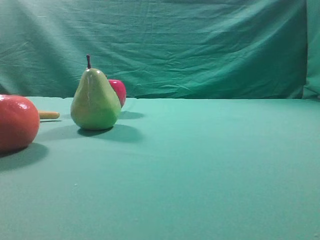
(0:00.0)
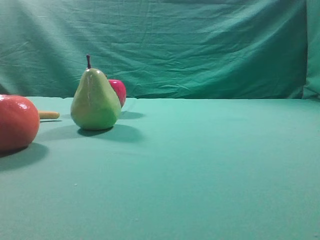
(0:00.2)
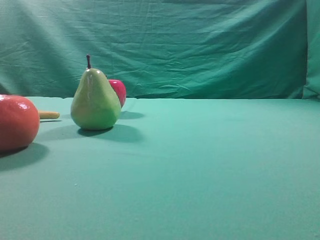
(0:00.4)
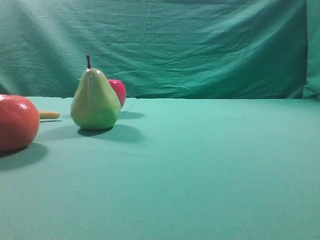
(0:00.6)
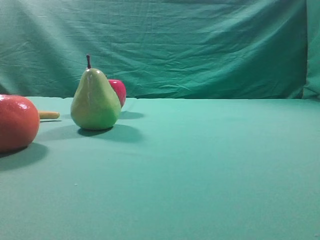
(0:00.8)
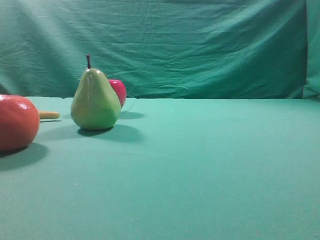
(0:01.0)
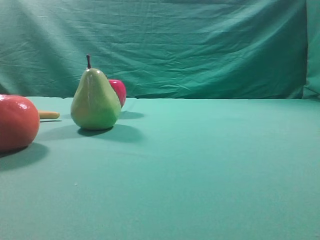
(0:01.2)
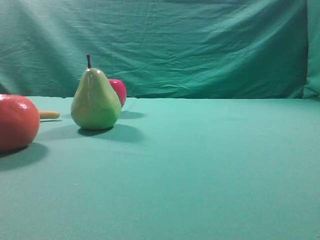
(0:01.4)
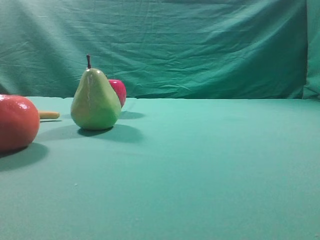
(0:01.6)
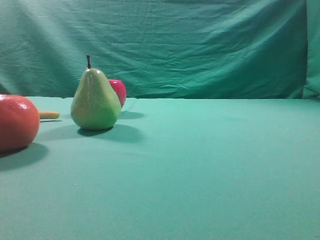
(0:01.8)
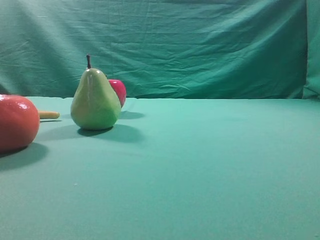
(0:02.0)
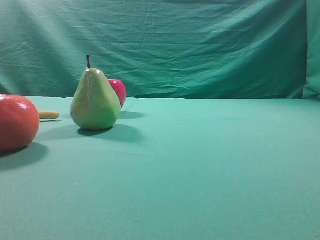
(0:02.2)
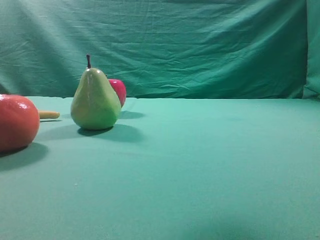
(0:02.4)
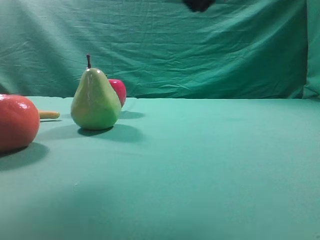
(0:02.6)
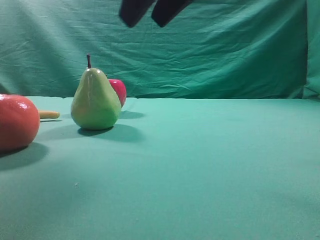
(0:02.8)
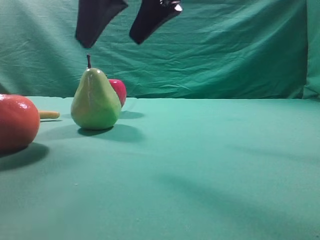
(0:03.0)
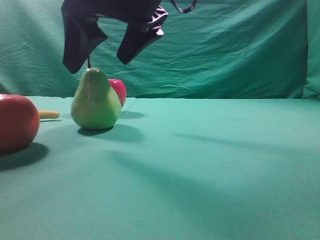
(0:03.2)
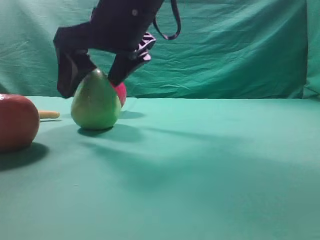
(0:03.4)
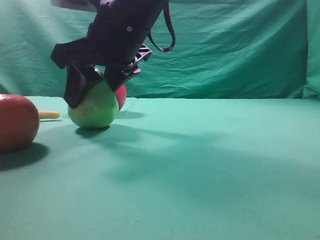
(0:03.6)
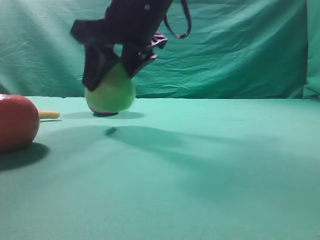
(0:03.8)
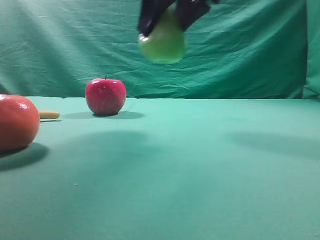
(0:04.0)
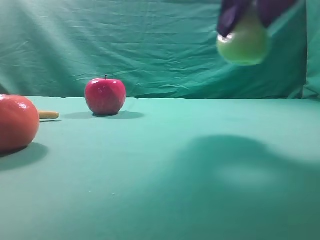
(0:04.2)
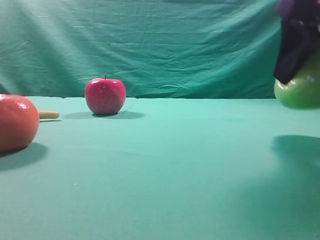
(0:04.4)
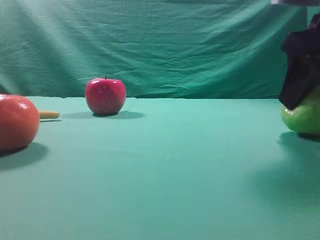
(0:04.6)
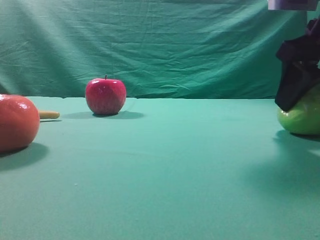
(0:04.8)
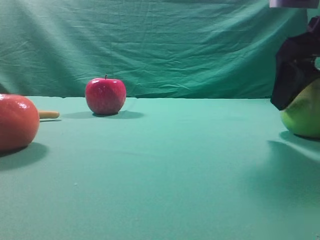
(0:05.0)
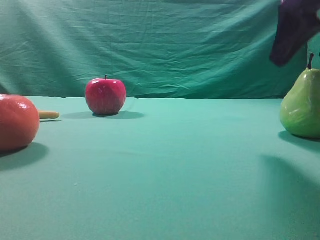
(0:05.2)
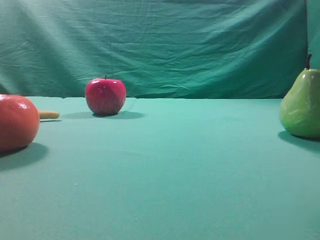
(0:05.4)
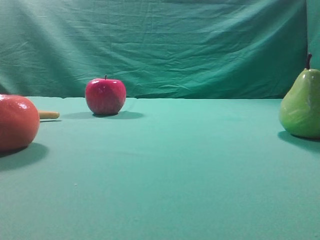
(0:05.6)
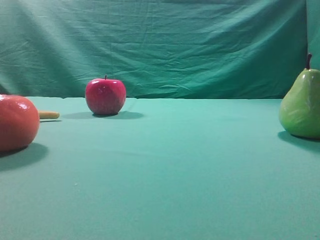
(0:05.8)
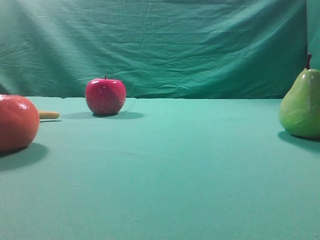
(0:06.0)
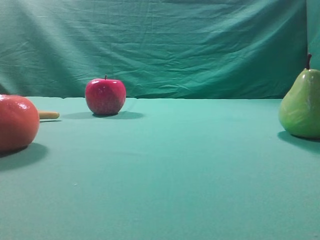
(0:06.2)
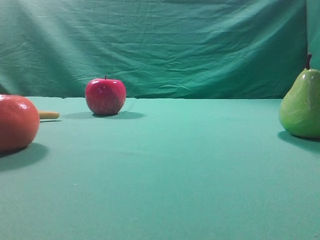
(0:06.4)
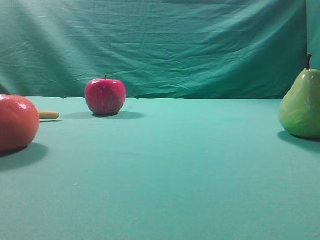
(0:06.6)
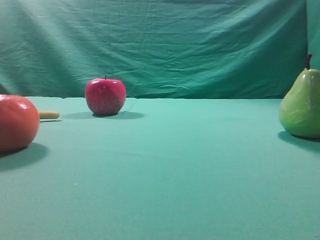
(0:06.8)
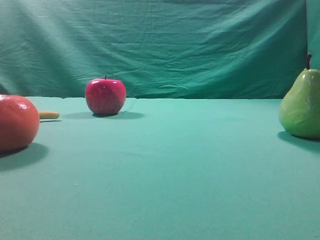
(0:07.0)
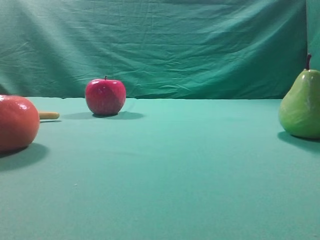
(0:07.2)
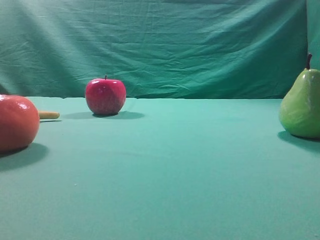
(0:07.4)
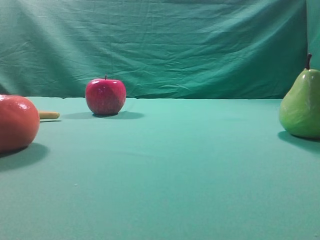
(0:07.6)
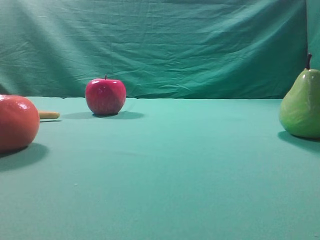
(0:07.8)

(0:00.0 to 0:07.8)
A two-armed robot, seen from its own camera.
Task of the whole recording: Grasp the pear and place it on one side of the table.
Step, 0:00.0 - 0:03.8: Grasp the high-fiber fruit.
Step, 0:04.0 - 0:05.2: Place it on the right side of the table.
